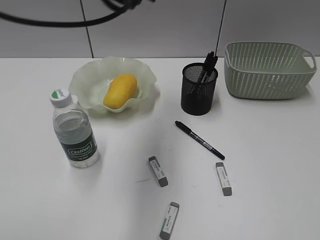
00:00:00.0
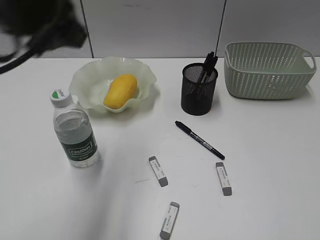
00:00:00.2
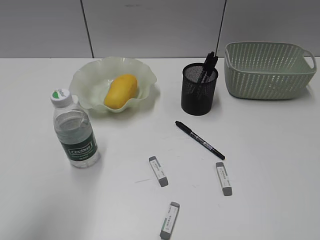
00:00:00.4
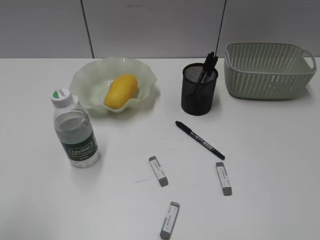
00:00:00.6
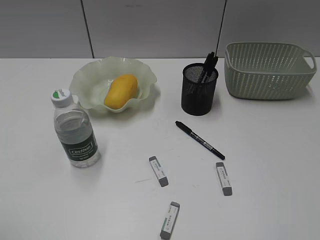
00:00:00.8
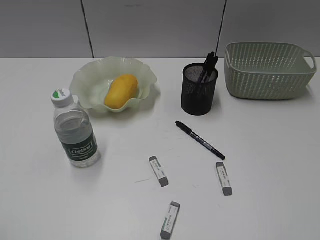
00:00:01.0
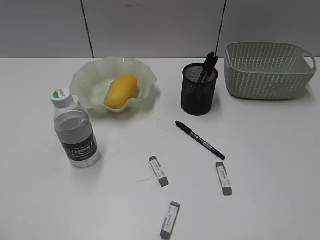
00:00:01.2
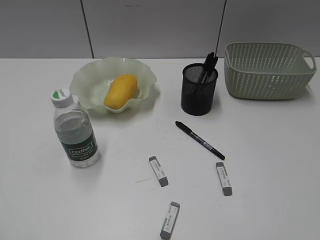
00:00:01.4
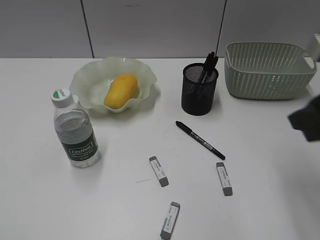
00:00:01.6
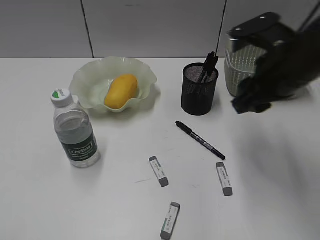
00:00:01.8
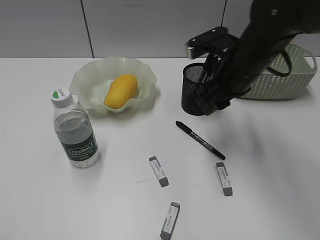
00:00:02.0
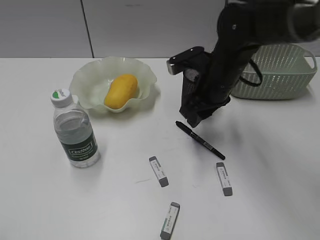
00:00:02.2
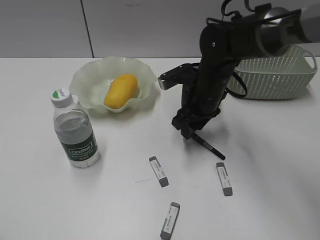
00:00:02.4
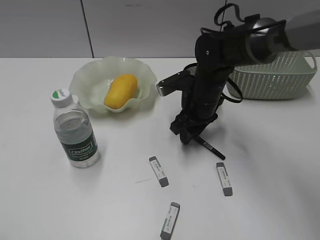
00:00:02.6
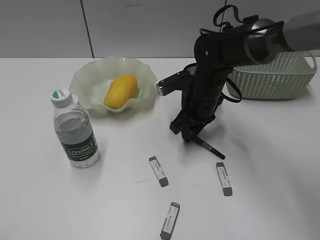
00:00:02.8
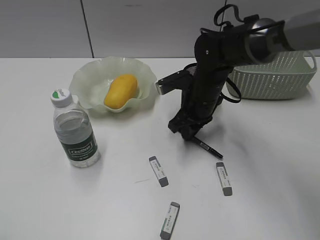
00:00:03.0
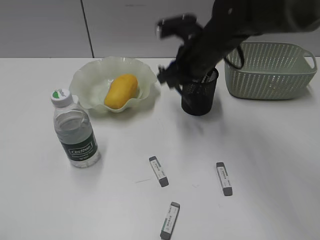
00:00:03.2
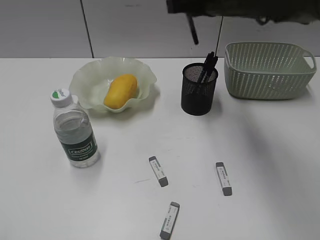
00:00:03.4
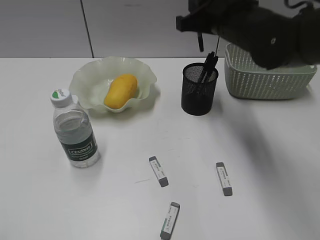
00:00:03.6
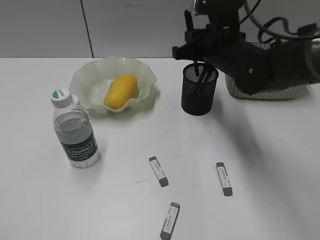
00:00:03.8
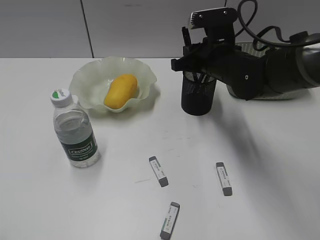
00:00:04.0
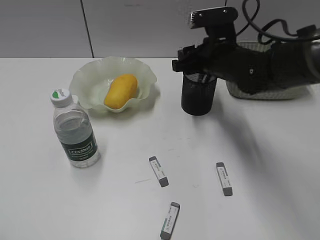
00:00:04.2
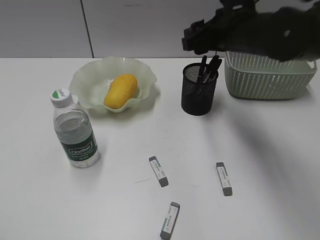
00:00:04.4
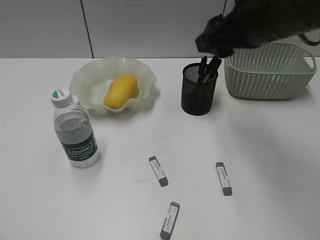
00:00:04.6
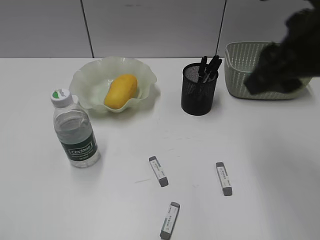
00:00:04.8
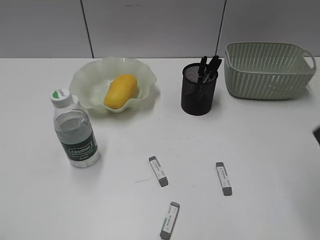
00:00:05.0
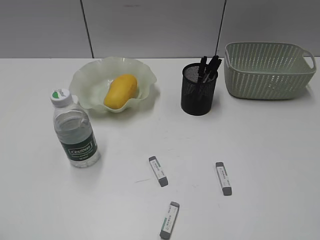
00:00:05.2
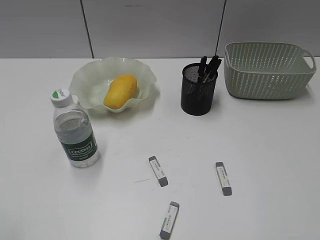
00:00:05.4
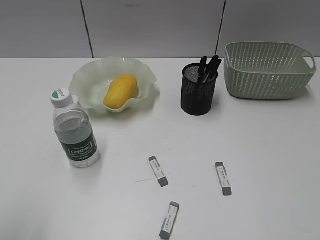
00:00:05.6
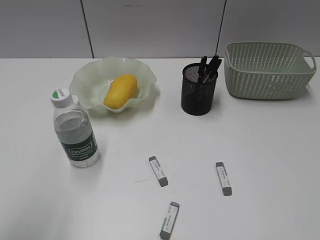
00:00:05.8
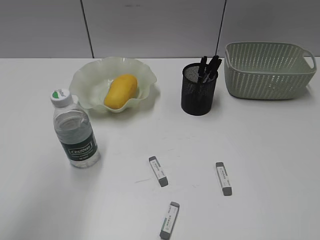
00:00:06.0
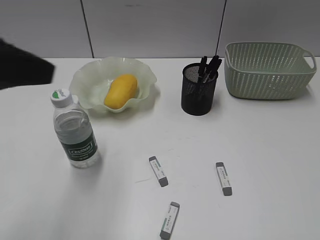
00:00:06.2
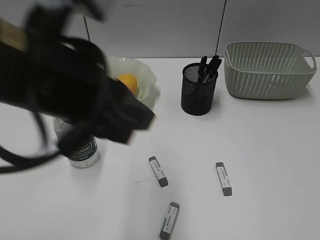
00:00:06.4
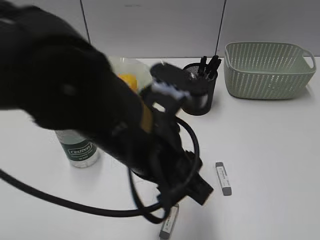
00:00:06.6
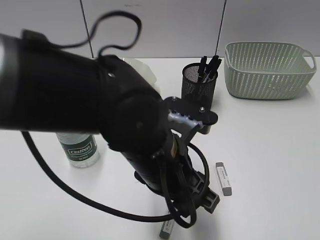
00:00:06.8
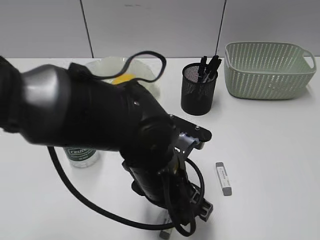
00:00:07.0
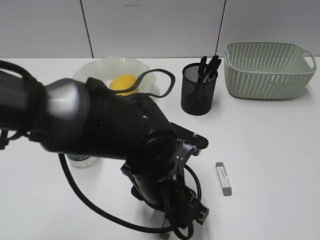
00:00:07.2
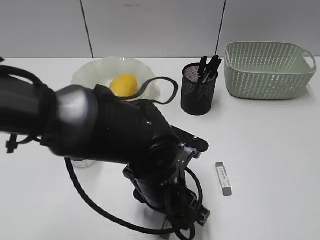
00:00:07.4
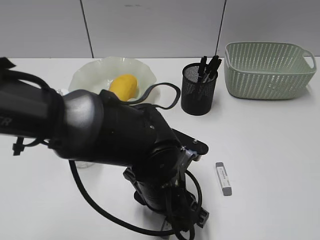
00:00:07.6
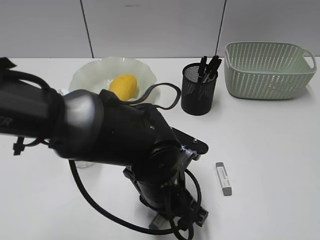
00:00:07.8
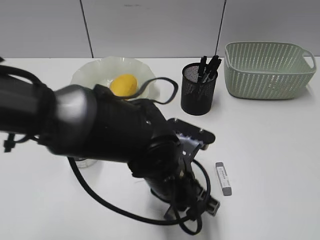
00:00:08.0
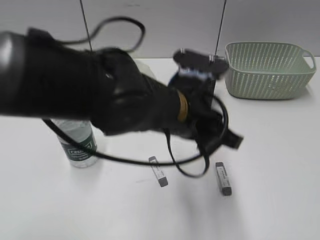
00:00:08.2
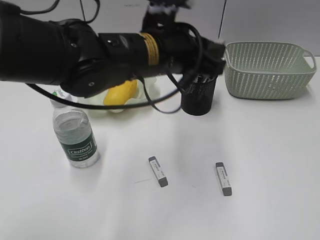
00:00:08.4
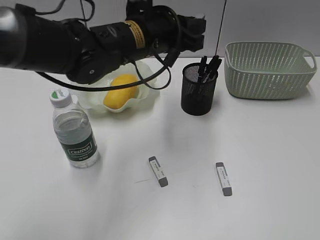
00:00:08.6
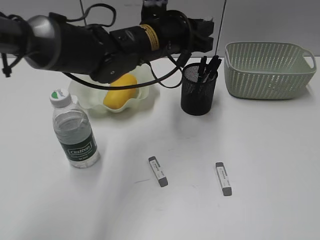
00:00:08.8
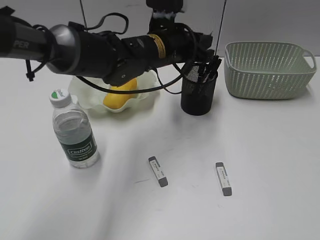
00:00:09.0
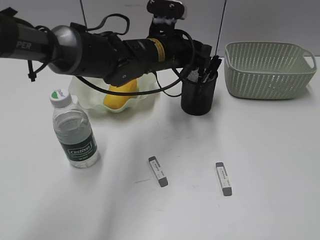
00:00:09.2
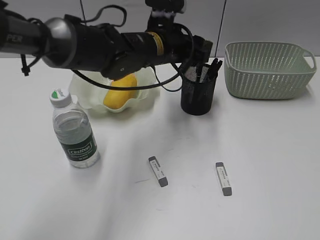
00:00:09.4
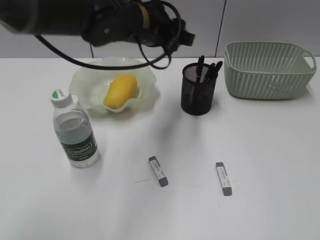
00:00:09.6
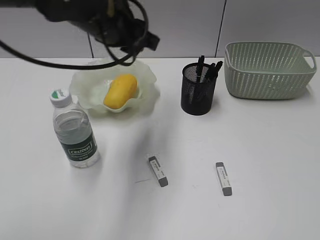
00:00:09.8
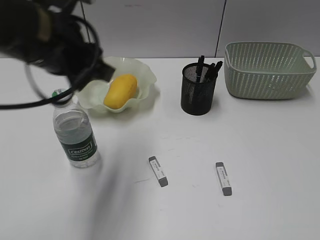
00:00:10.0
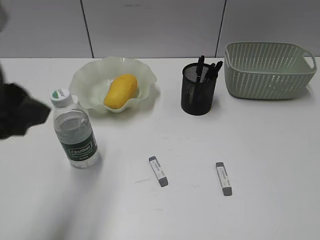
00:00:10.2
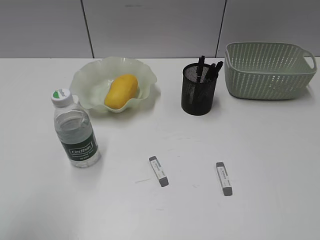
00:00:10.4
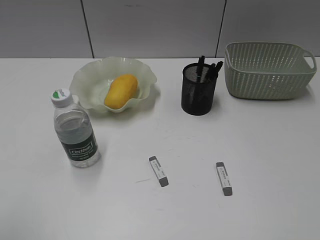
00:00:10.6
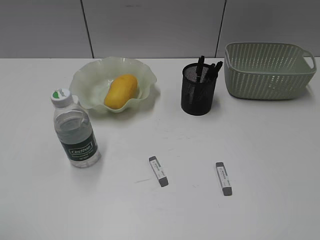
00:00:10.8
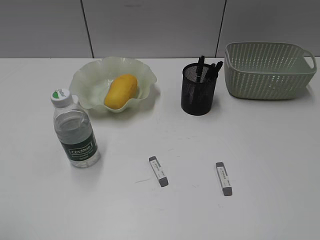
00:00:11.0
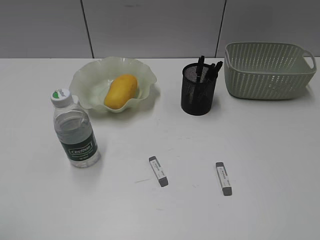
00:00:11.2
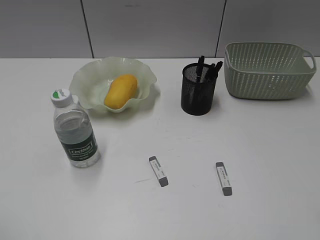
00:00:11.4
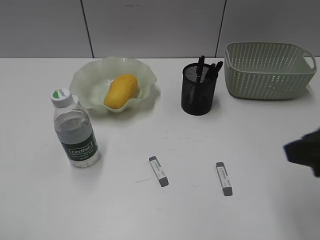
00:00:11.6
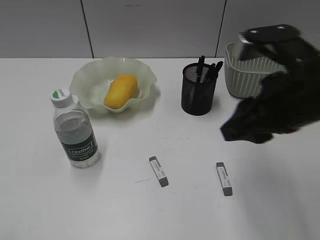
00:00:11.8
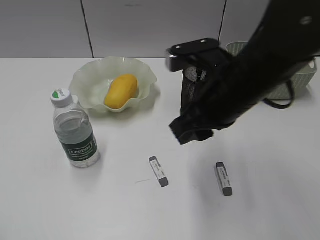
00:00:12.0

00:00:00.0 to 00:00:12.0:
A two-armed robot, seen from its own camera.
Step, 00:00:00.0 to 00:00:02.8: Grasp the black pen with right gripper.
Step, 00:00:03.0 to 00:00:04.2: Place the black pen in pen holder with right gripper.
Step, 00:00:04.4 to 00:00:07.8: Grasp the eraser with left gripper.
Step, 00:00:08.0 to 00:00:09.4: Place the eraser in pen holder with left gripper.
00:00:00.0 to 00:00:01.6: The left gripper travels backward and to the left by roughly 40 cm, and opens its fingers. The right gripper heads forward and to the left, covering some 20 cm.
00:00:01.6 to 00:00:03.0: The right gripper heads forward, downward and to the left, covering approximately 30 cm, and closes its fingers.
00:00:03.0 to 00:00:04.4: The right gripper moves up and down over approximately 20 cm, changing direction 2 times, and opens its fingers.
00:00:04.4 to 00:00:06.0: The left gripper goes roughly 15 cm forward and to the right; the right gripper is displaced backward and to the right by some 40 cm.
00:00:06.0 to 00:00:07.6: The left gripper heads to the right and downward, covering roughly 35 cm.
00:00:07.6 to 00:00:09.0: The left gripper is displaced forward and upward by some 20 cm, and closes up.
00:00:09.0 to 00:00:10.4: The left gripper shifts some 40 cm backward and to the left, and opens up.
00:00:10.4 to 00:00:12.0: The left gripper travels backward and to the left by about 15 cm, while the right gripper is displaced forward and to the left by approximately 30 cm.

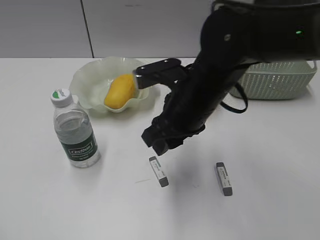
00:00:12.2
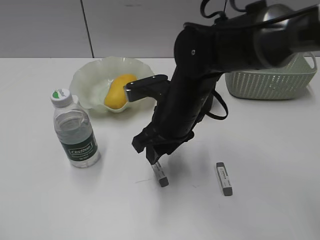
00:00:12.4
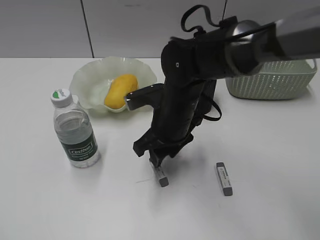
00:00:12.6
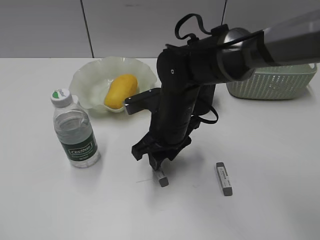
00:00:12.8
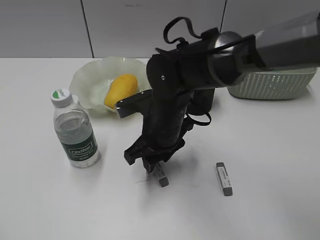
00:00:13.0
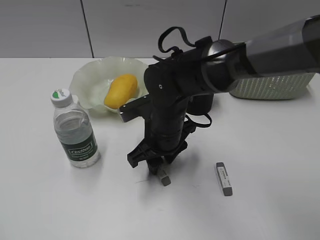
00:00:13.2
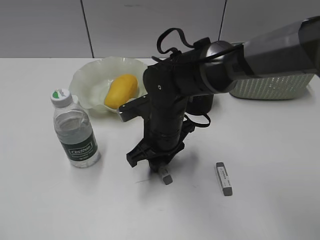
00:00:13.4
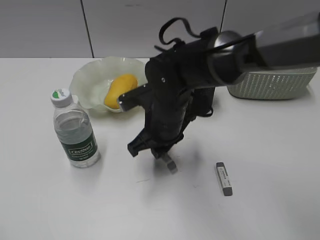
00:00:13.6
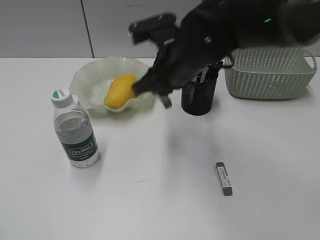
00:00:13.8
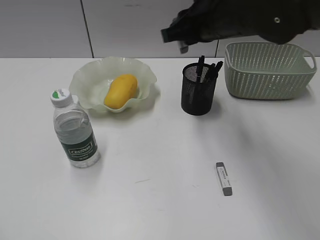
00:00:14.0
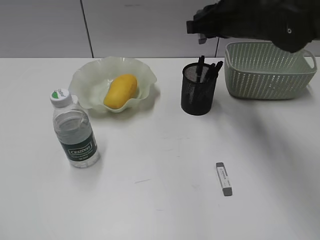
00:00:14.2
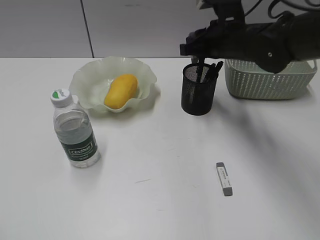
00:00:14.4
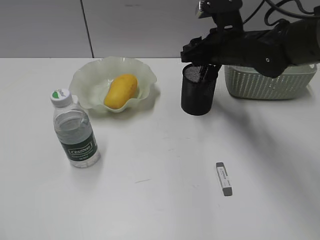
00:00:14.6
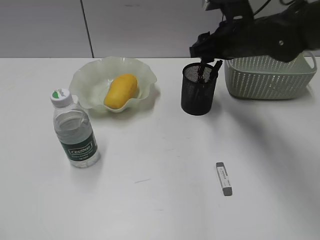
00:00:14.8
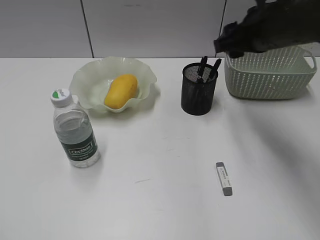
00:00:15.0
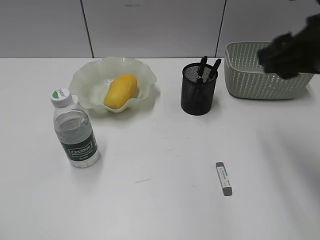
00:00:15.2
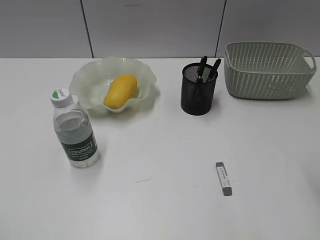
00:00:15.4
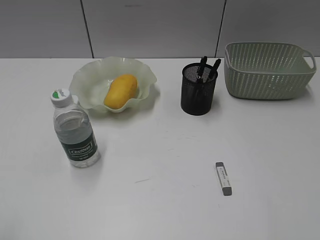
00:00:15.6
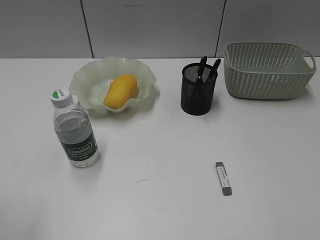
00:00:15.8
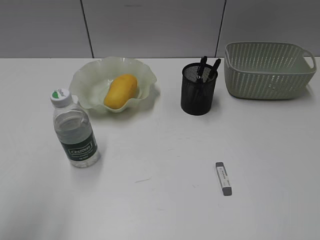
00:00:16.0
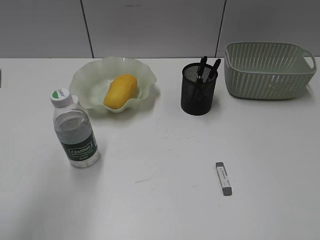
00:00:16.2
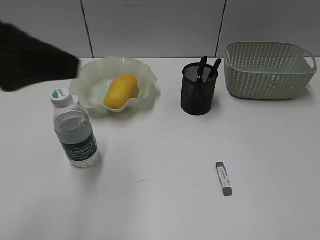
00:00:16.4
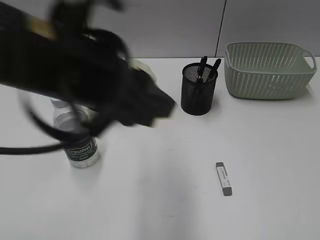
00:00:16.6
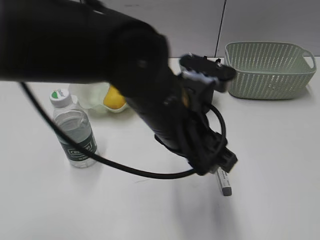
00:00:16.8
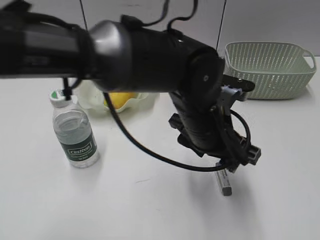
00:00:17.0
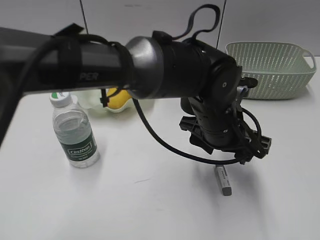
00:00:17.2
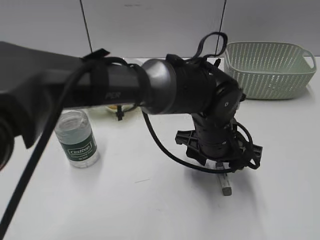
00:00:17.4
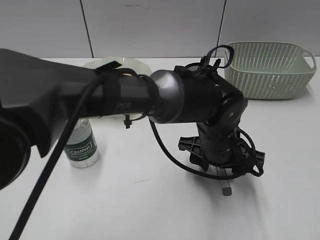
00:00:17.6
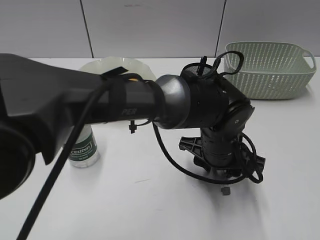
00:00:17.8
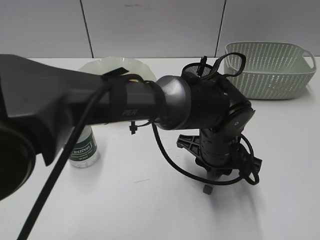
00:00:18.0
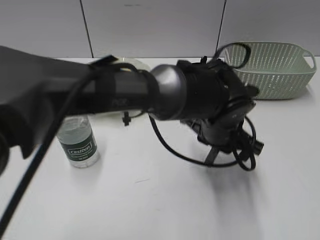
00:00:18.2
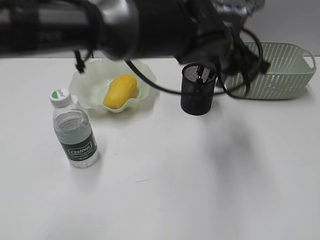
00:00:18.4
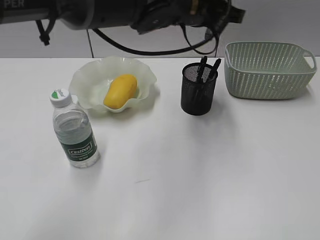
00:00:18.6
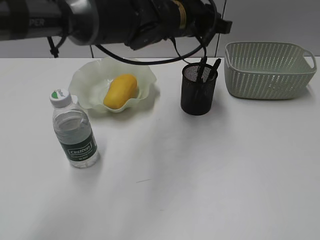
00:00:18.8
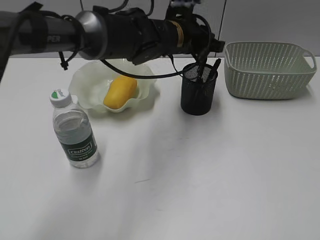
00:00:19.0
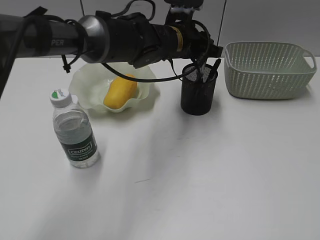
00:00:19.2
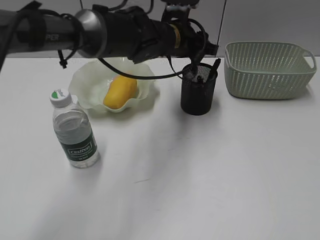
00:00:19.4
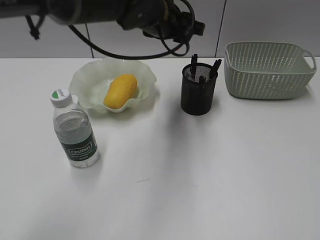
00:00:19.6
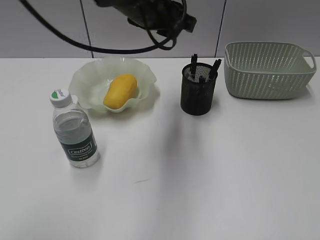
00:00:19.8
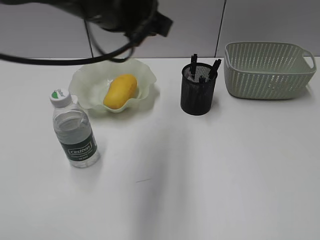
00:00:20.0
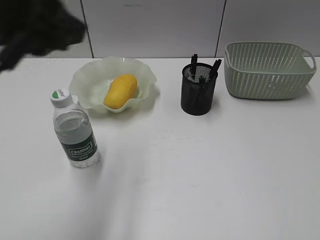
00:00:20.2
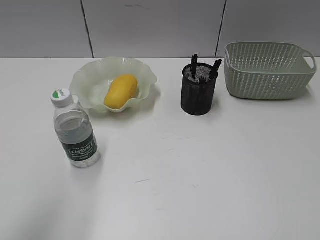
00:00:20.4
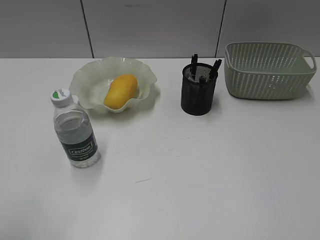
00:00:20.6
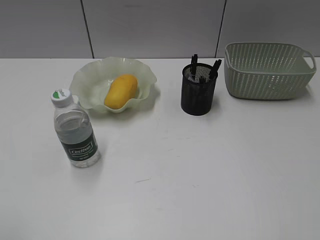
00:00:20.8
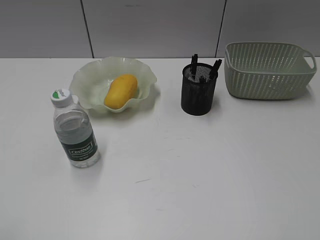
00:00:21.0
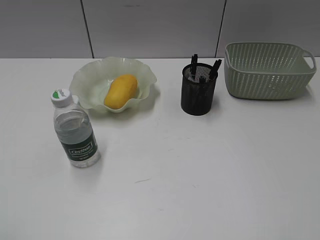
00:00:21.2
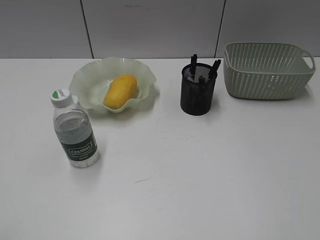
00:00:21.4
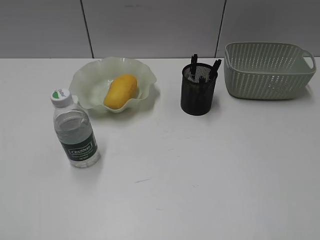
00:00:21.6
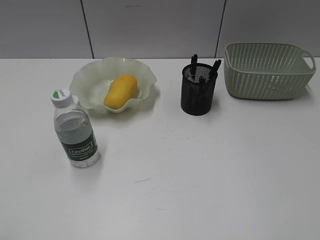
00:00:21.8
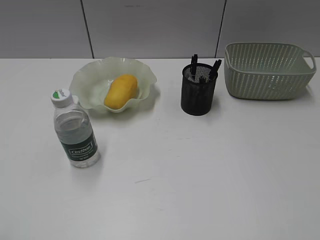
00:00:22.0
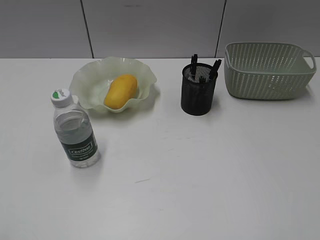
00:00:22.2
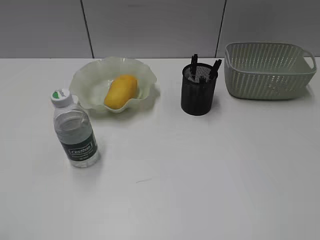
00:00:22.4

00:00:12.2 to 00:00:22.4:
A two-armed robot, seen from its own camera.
Step, 00:00:13.6 to 00:00:14.8: Place the eraser in pen holder with right gripper.
Step, 00:00:15.0 to 00:00:18.0: Grasp the eraser with left gripper.
Step, 00:00:18.2 to 00:00:19.4: Place the eraser in pen holder with left gripper.
00:00:12.2 to 00:00:13.6: The right gripper shifts approximately 10 cm downward, and closes its fingers.
00:00:13.6 to 00:00:15.2: The right gripper is displaced to the right and upward by roughly 25 cm, and opens.
00:00:15.2 to 00:00:16.6: The right gripper shifts about 30 cm backward and to the right, while the left gripper heads to the right and forward, covering approximately 30 cm, and closes its fingers.
00:00:16.6 to 00:00:18.0: The left gripper travels downward and to the right by approximately 25 cm, and closes up.
00:00:18.0 to 00:00:19.4: The left gripper shifts about 20 cm forward, upward and to the left, and opens.
00:00:19.4 to 00:00:21.0: The left gripper moves backward and to the left, some 50 cm.
